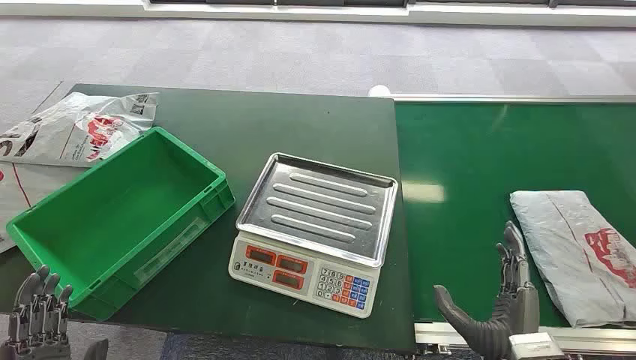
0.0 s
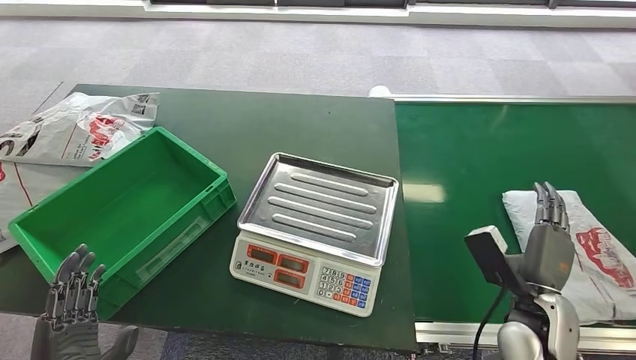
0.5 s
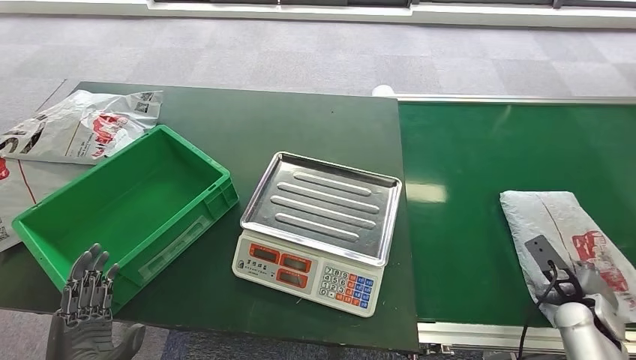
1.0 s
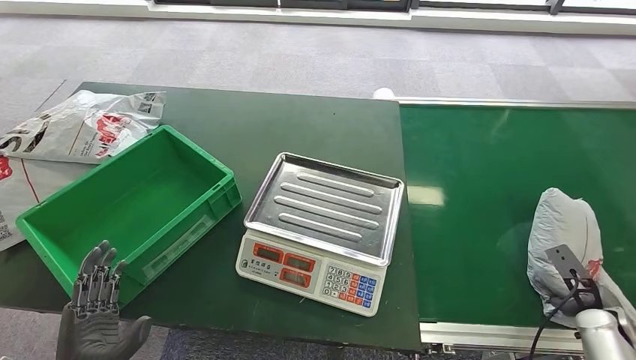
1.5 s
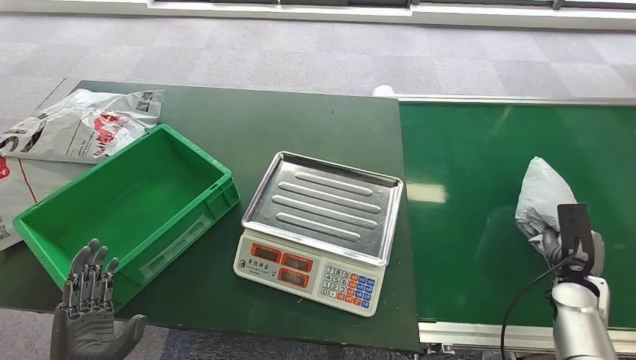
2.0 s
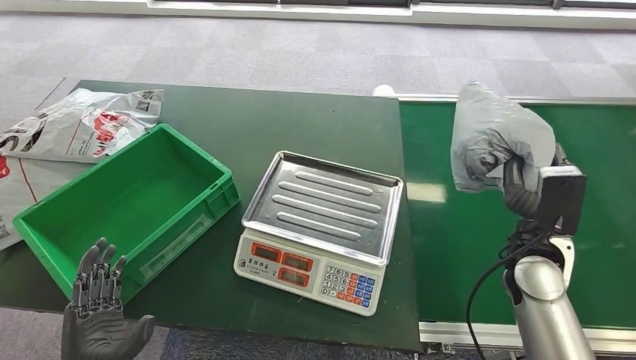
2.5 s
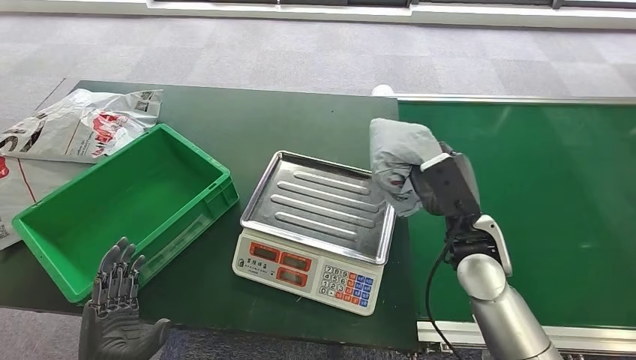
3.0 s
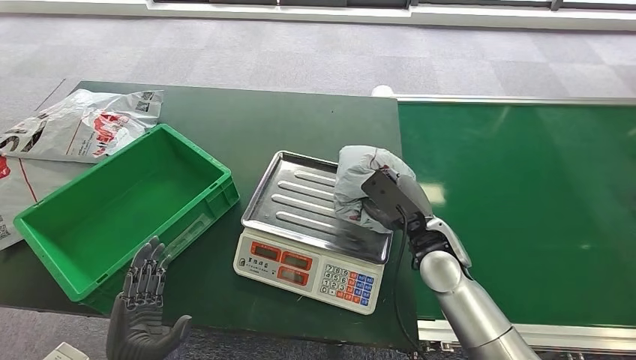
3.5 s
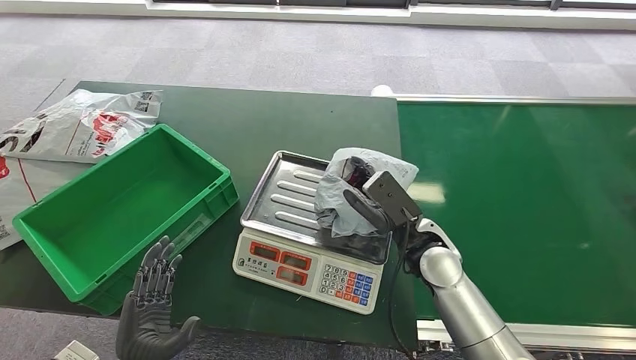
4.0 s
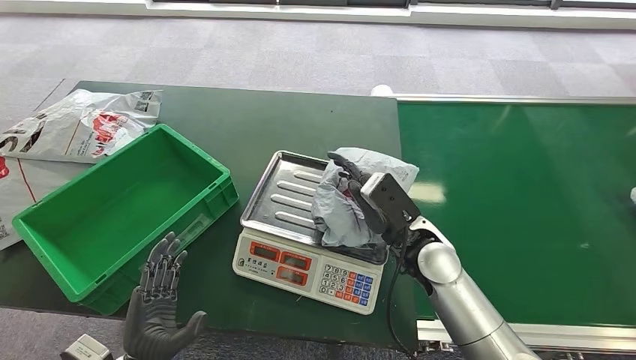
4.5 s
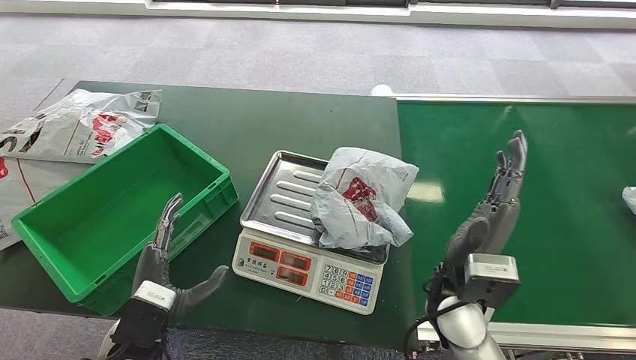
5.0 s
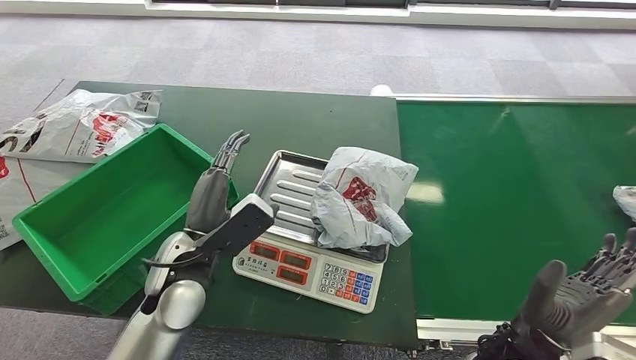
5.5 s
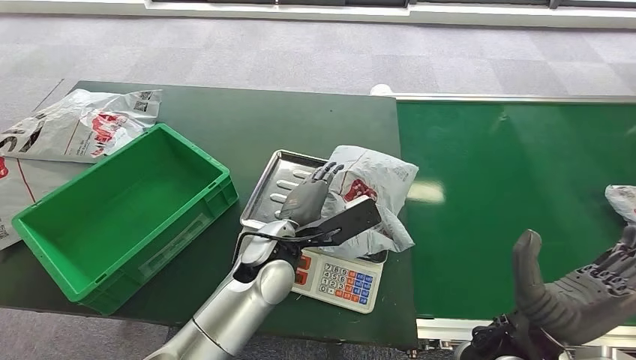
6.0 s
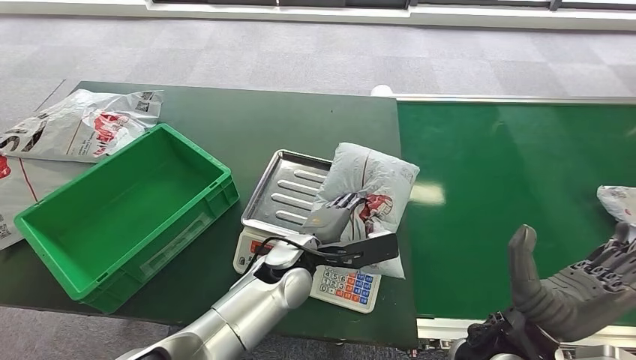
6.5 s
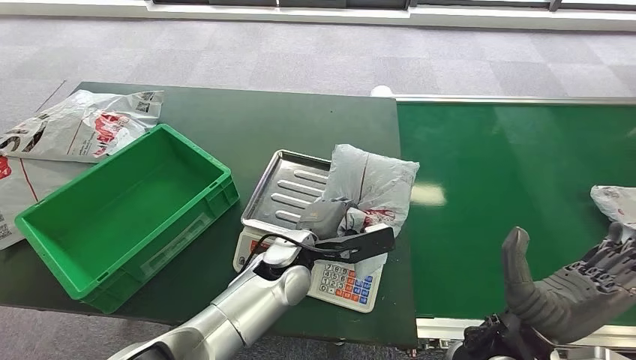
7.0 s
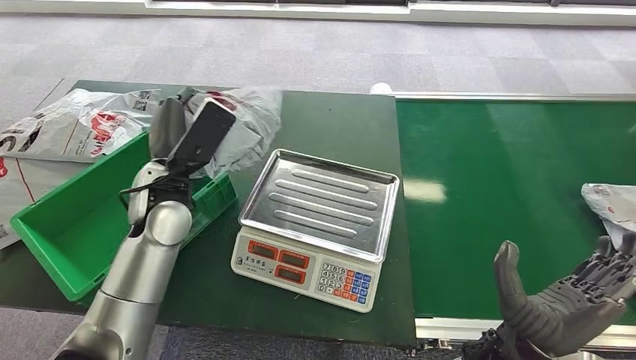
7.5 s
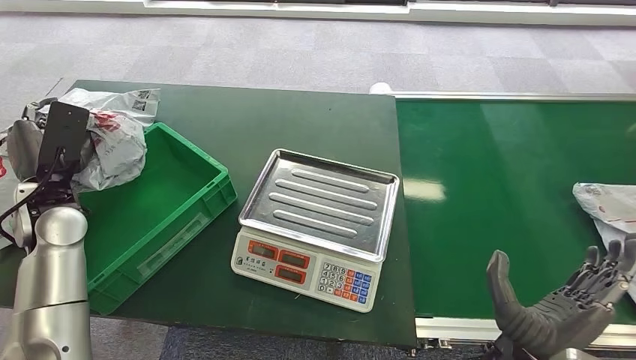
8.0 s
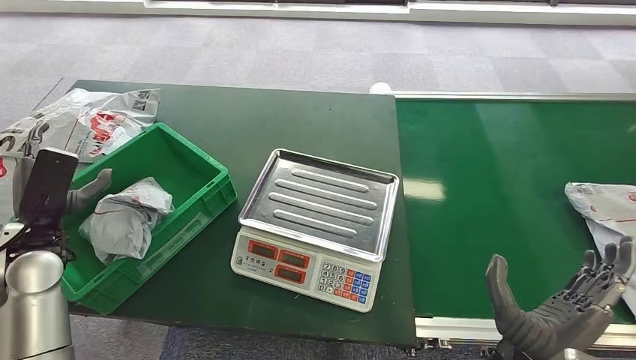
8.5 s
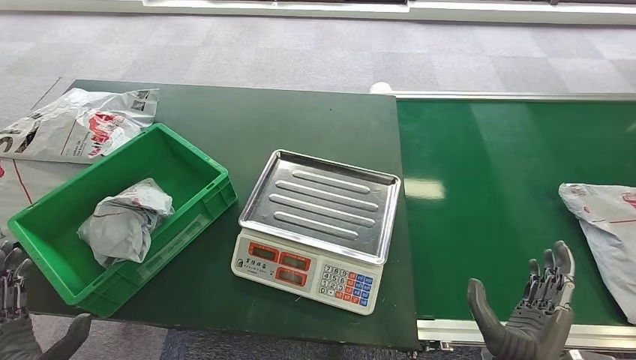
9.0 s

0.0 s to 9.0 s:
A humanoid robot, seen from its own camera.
Step, 0.0 to 2.5 s: Pick up the package from the conveyor belt.
Step, 3.0 to 5.0 s: Place the package onto the inbound machine.
Step, 5.5 to 8.0 s: Pick up the package from the inbound machine.
Step, 8.5 to 9.0 s: Place the package into the parcel locker.
2.0 to 4.5 s: The left hand ends up about 5 cm from where it was, while the right hand goes roughly 30 cm to the left.

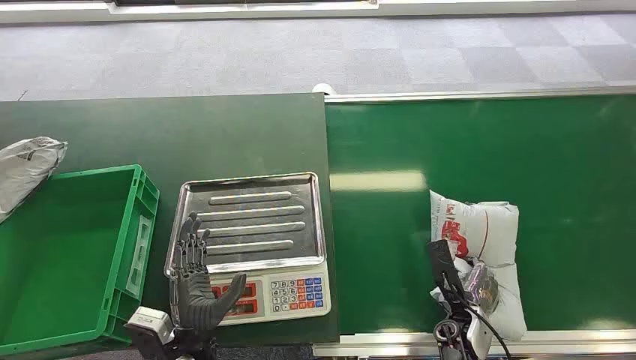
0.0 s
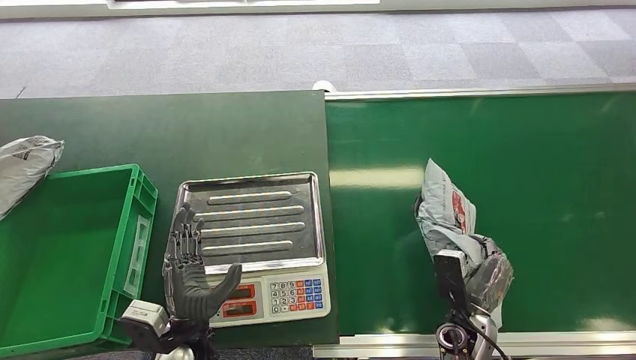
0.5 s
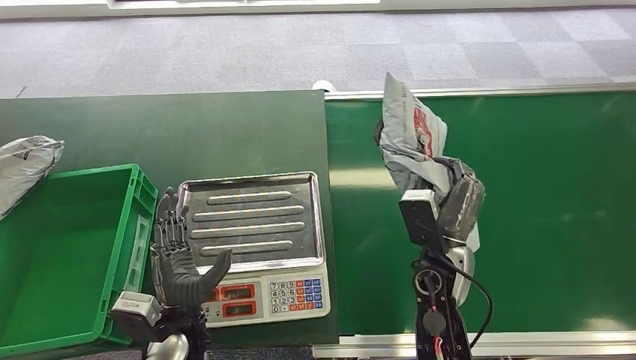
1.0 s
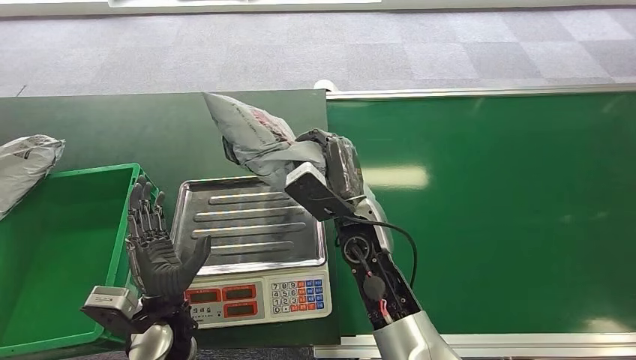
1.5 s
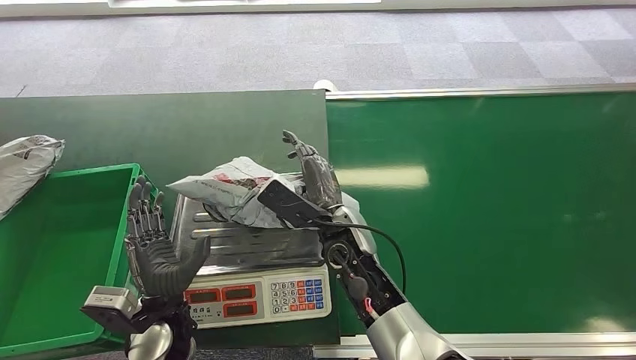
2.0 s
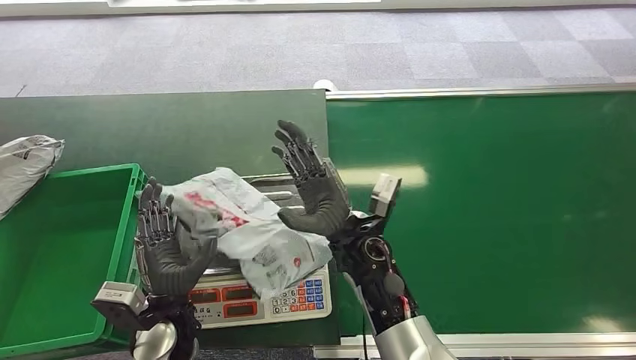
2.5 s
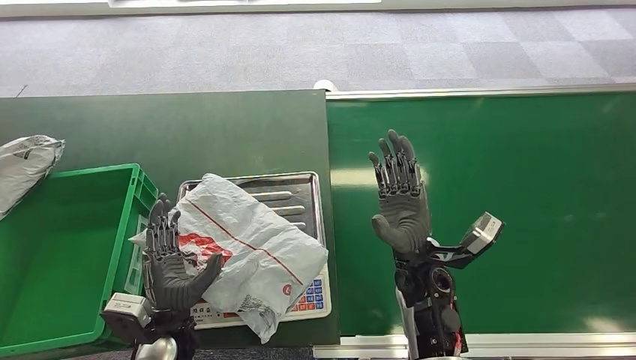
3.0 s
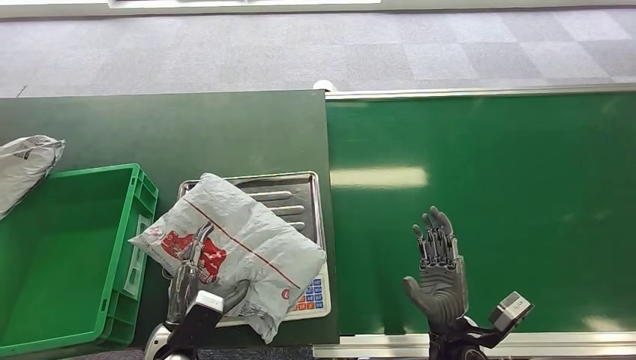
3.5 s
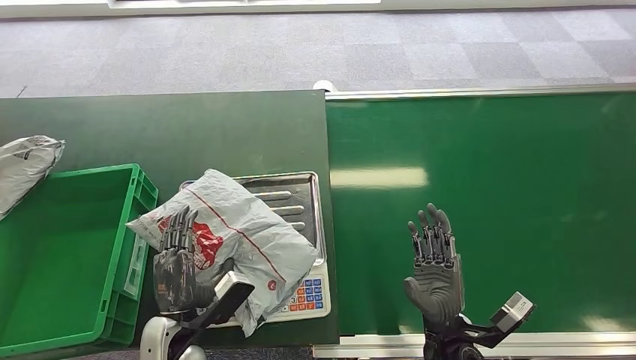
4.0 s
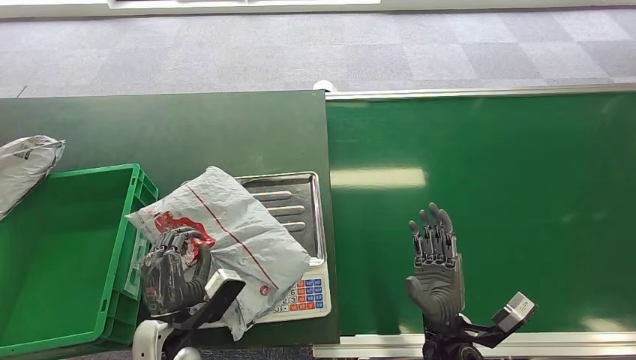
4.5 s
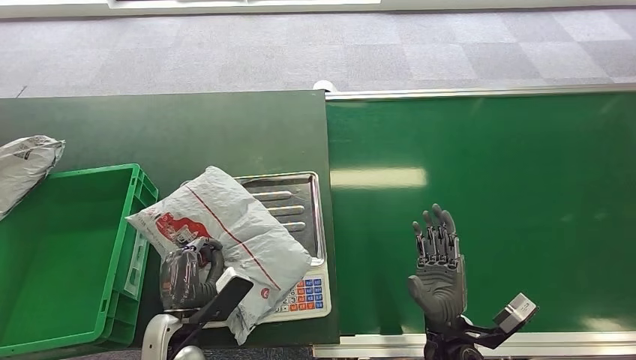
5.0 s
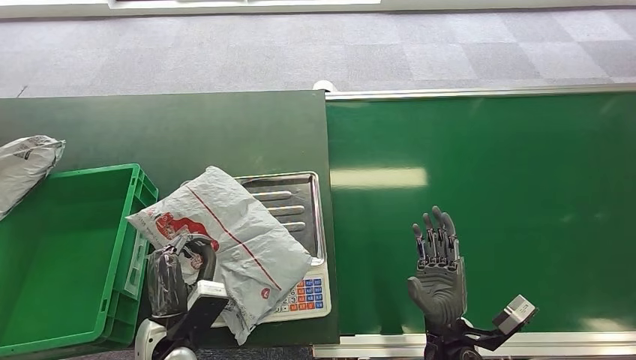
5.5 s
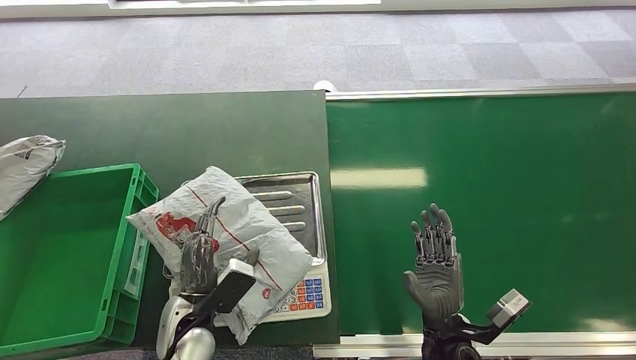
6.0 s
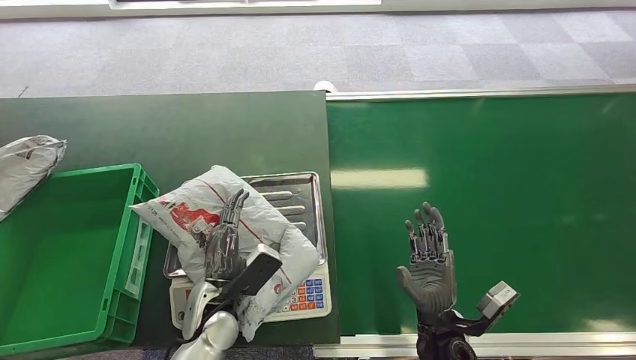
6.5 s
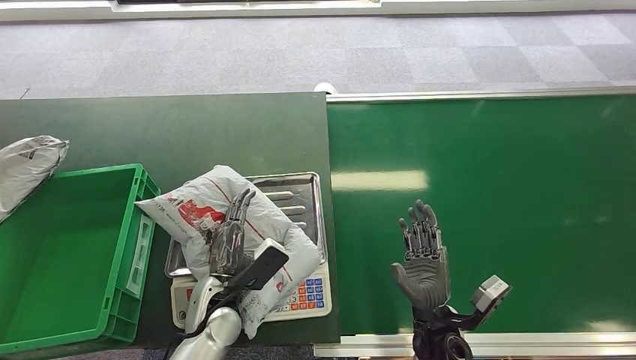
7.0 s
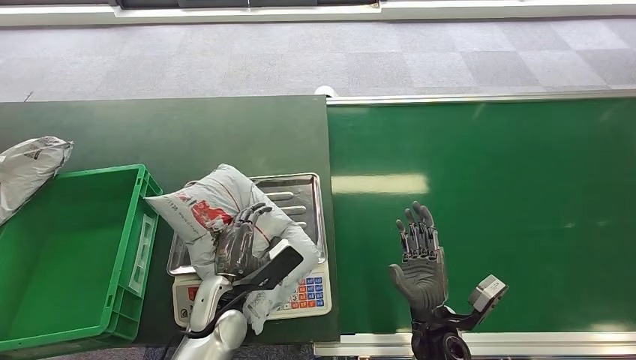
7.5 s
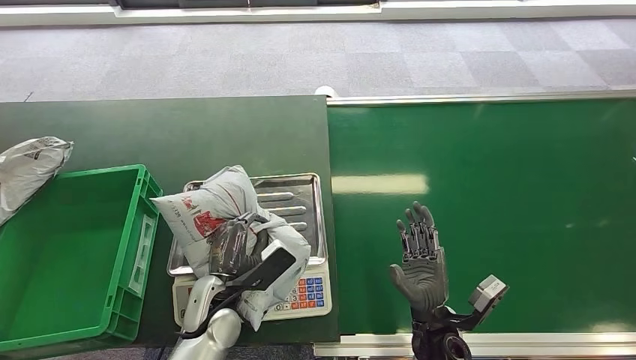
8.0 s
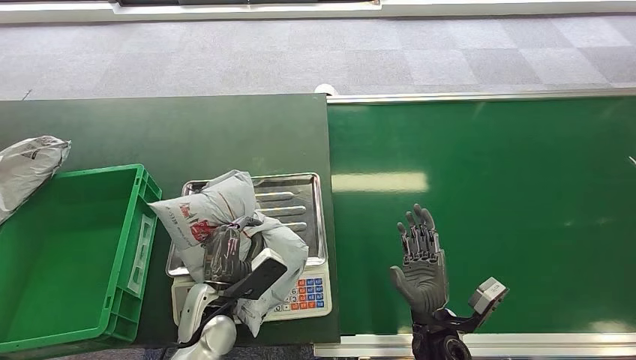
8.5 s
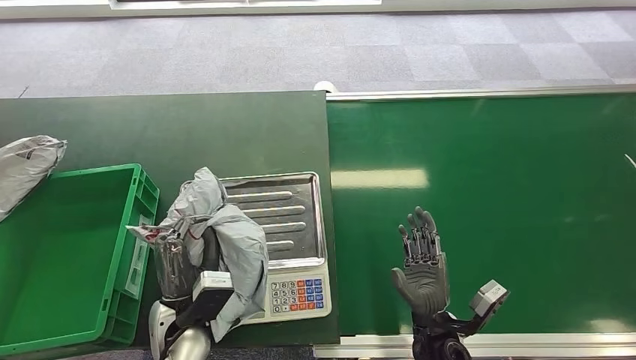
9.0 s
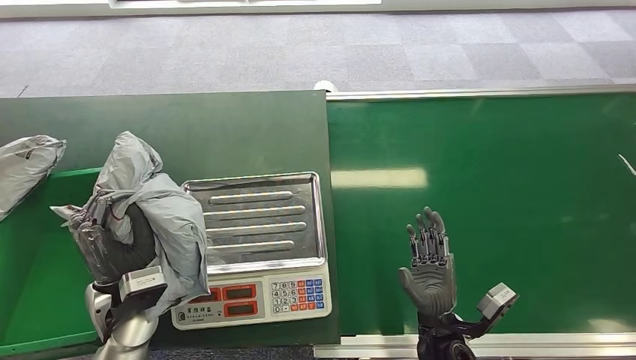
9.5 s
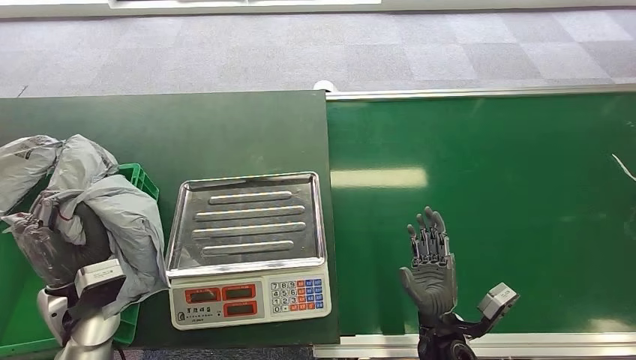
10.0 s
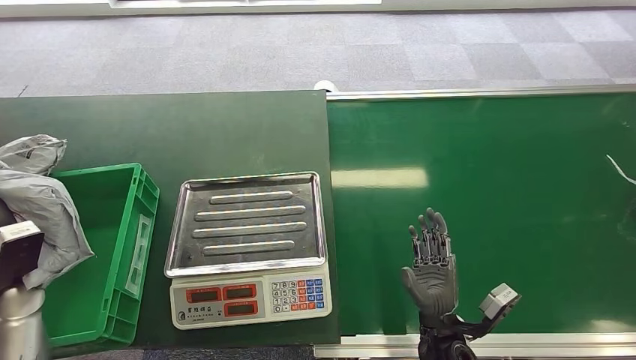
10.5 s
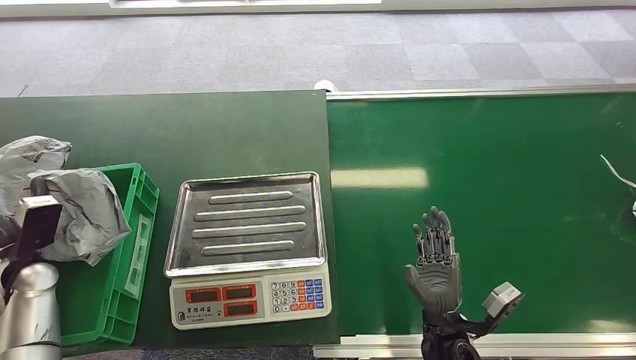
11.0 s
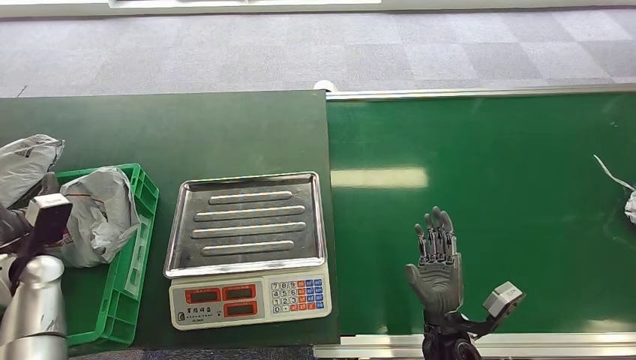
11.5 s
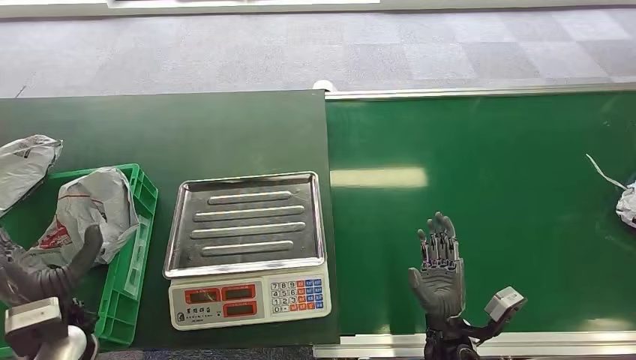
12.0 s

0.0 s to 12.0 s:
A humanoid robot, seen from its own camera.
Step, 0.0 to 1.0 s: Pick up the package from the conveyor belt.
Step, 2.0 to 3.0 s: Place the package onto the inbound machine.
Step, 6.5 to 9.0 s: Pick up the package from the inbound machine.
Step, 10.0 to 11.5 s: Place the package into the parcel locker.
2.0 to 4.0 s: The right hand goes roughly 20 cm to the right, backward and downward.
10.0 to 12.0 s: The left hand reaches approximately 15 cm to the left, then returns.
